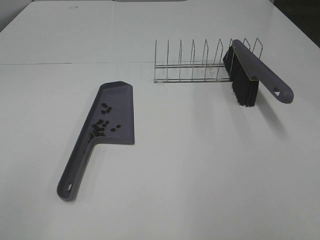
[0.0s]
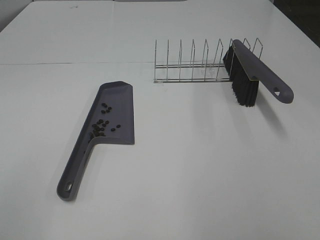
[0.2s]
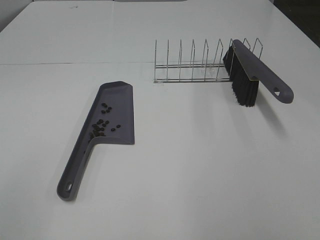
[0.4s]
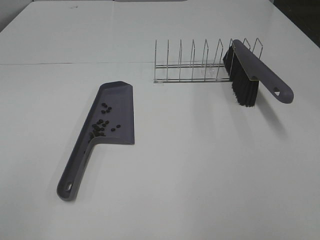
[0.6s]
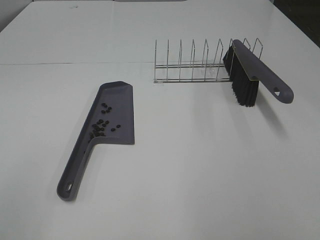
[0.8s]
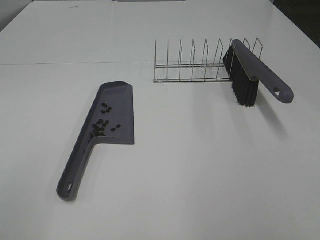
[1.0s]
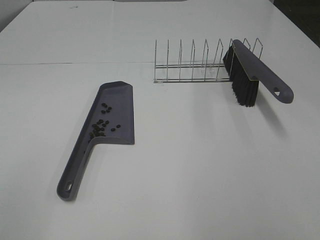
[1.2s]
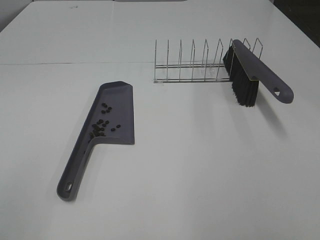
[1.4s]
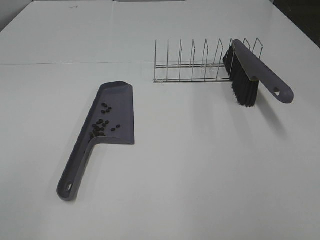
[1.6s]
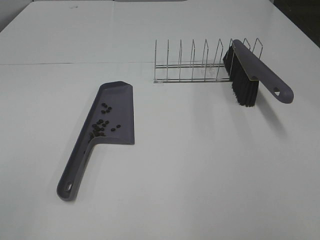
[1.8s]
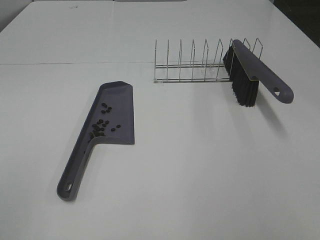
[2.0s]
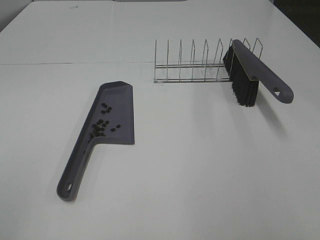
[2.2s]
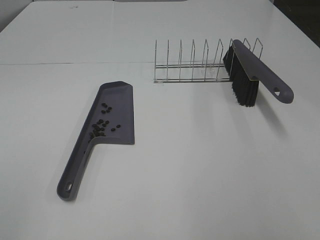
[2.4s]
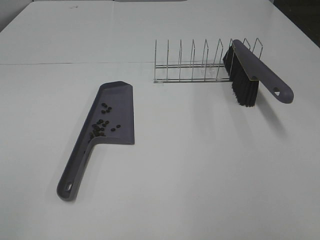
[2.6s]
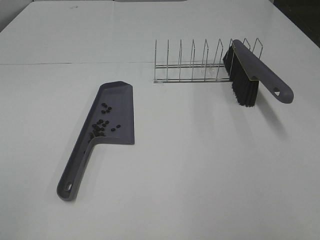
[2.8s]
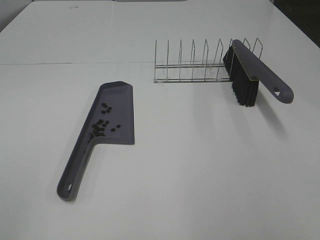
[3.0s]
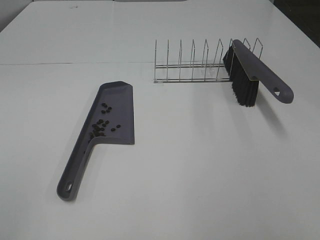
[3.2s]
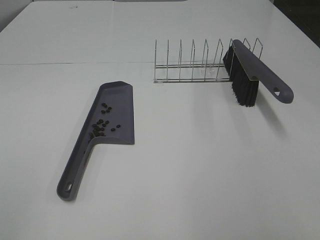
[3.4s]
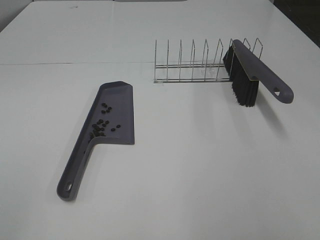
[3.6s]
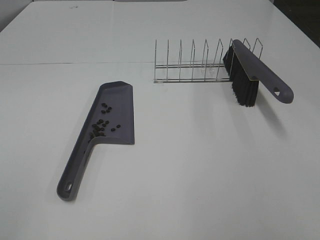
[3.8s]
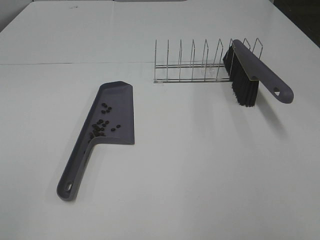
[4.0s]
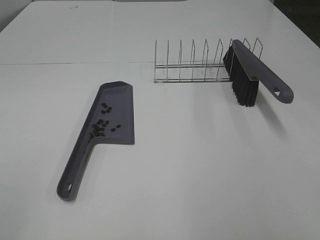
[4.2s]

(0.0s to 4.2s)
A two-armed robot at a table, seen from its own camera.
Task of the whole recording: Sweep Coffee Bean.
0.0s - 1.4s: Neither gripper changes place.
2.8s - 4.2s: Neither gripper changes place.

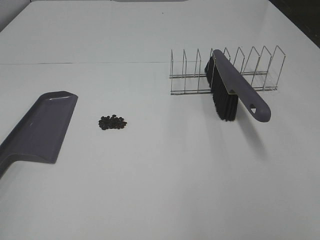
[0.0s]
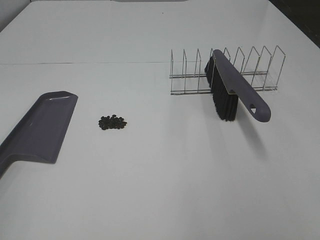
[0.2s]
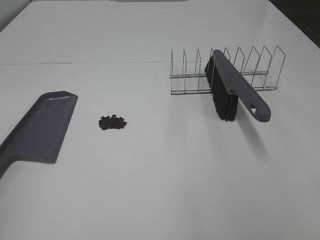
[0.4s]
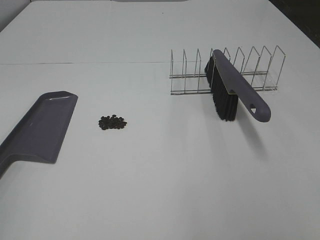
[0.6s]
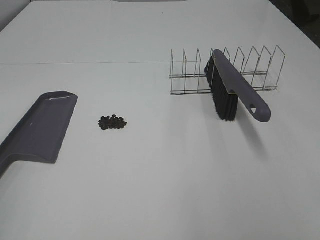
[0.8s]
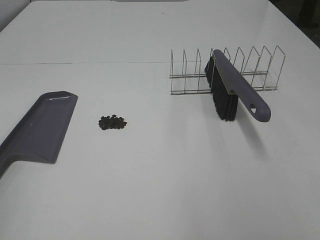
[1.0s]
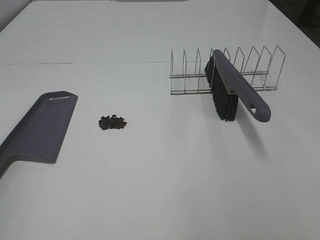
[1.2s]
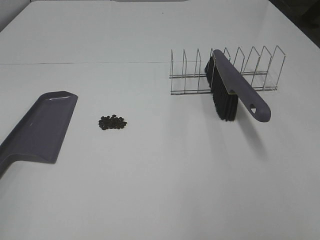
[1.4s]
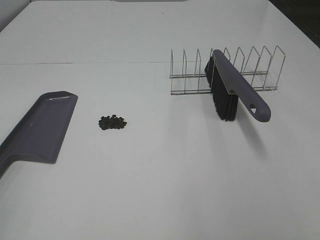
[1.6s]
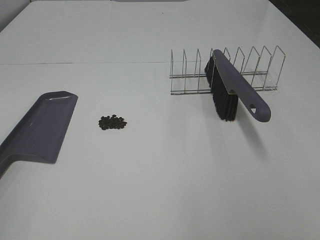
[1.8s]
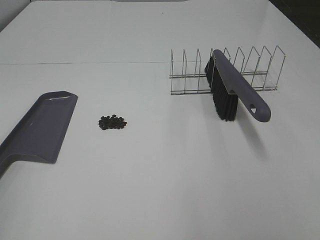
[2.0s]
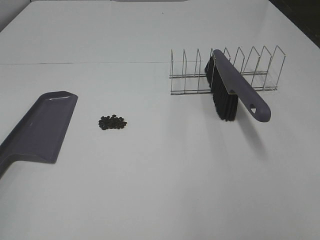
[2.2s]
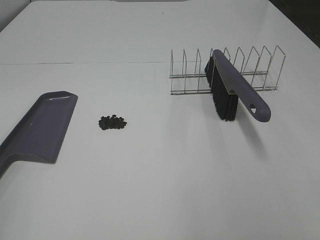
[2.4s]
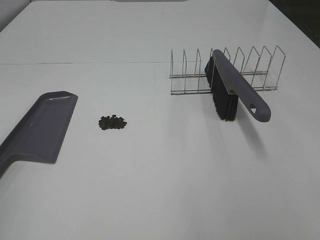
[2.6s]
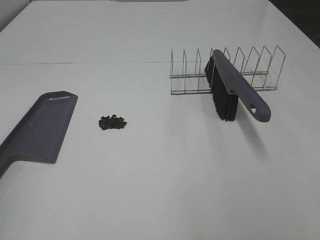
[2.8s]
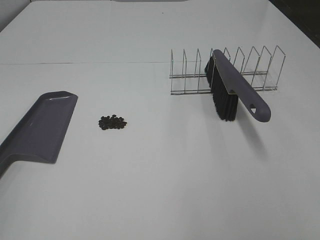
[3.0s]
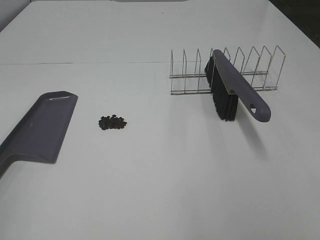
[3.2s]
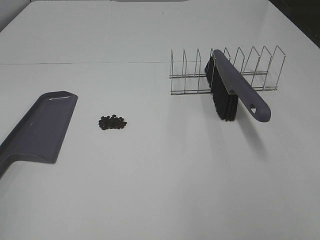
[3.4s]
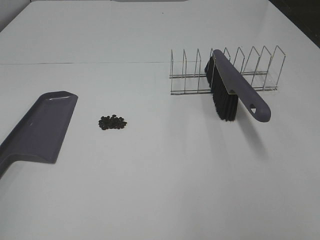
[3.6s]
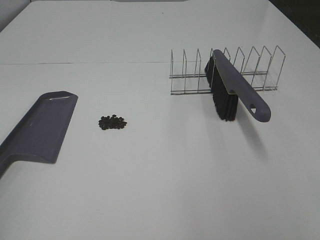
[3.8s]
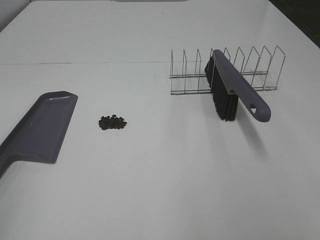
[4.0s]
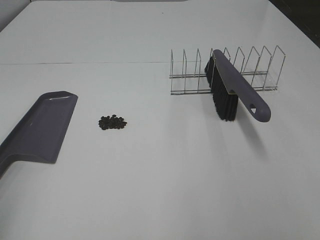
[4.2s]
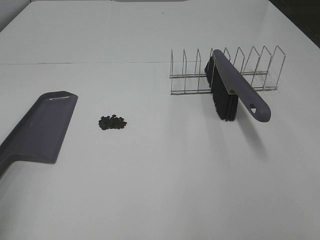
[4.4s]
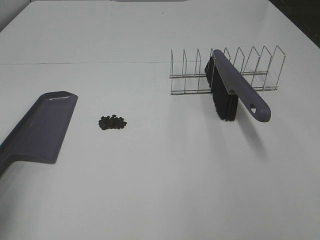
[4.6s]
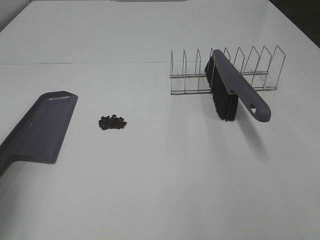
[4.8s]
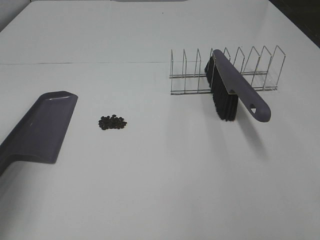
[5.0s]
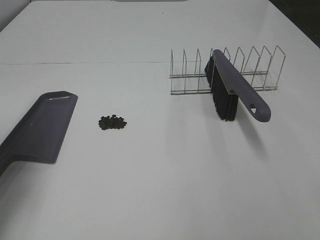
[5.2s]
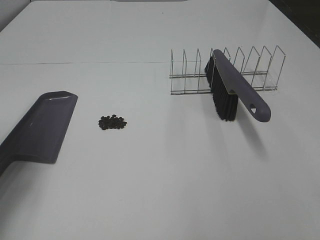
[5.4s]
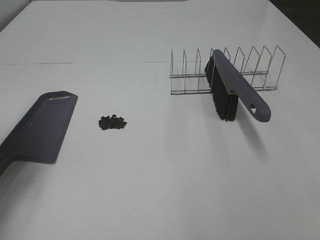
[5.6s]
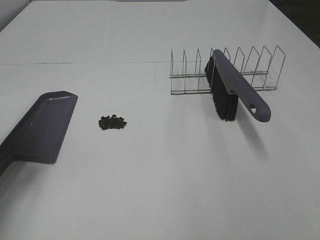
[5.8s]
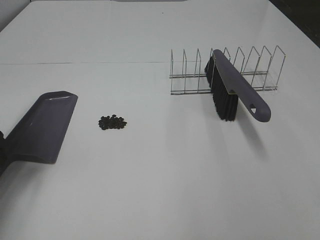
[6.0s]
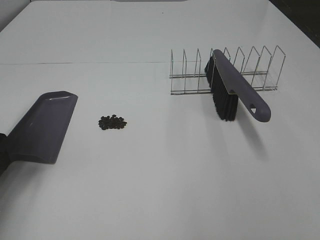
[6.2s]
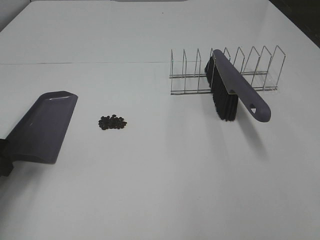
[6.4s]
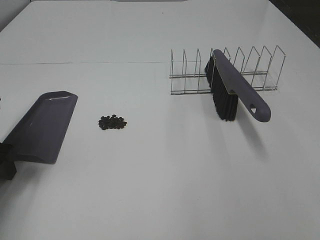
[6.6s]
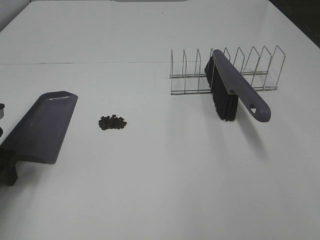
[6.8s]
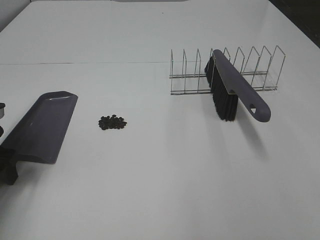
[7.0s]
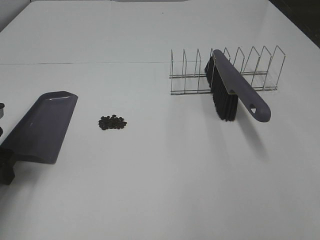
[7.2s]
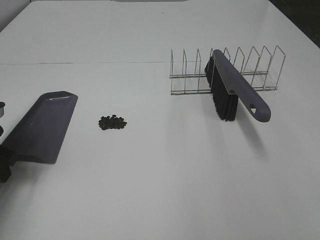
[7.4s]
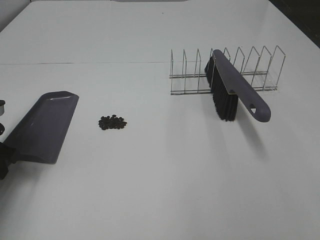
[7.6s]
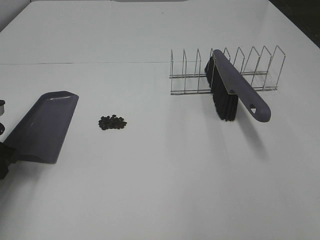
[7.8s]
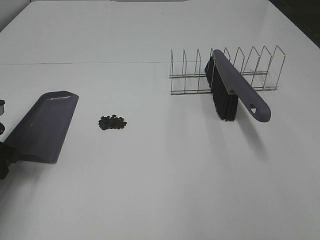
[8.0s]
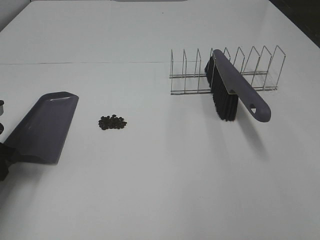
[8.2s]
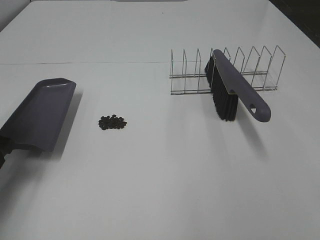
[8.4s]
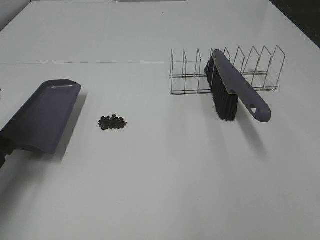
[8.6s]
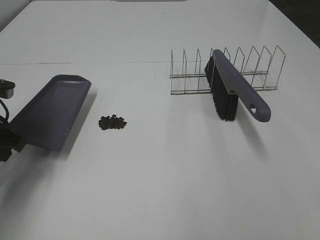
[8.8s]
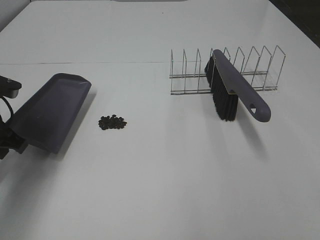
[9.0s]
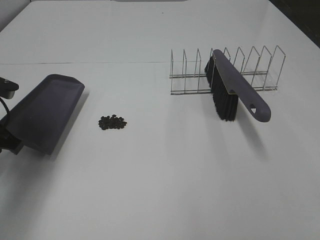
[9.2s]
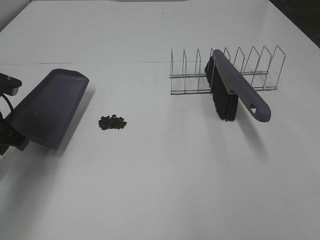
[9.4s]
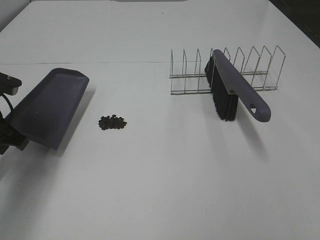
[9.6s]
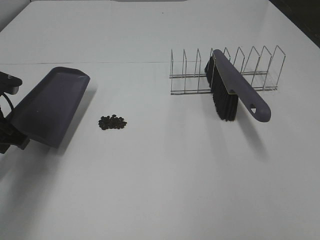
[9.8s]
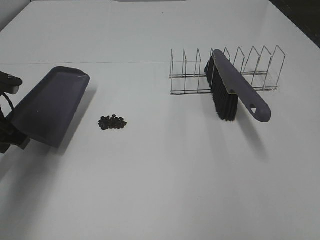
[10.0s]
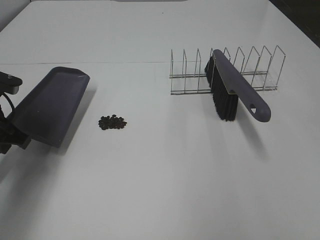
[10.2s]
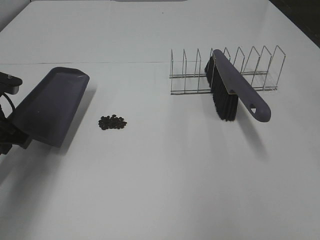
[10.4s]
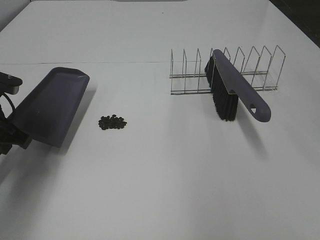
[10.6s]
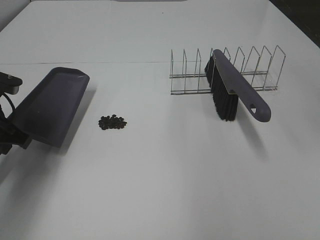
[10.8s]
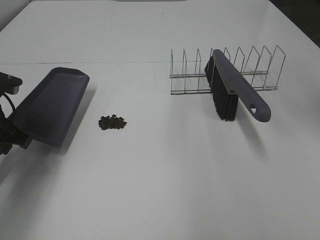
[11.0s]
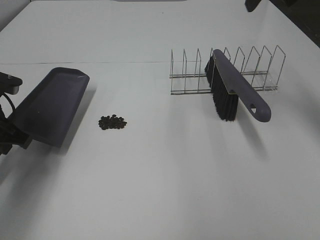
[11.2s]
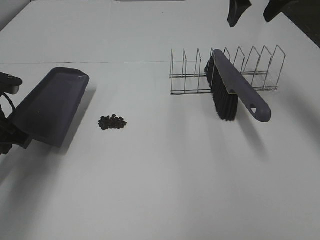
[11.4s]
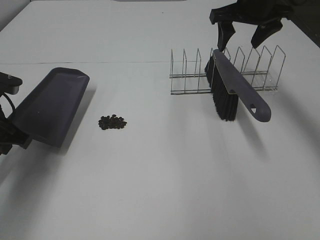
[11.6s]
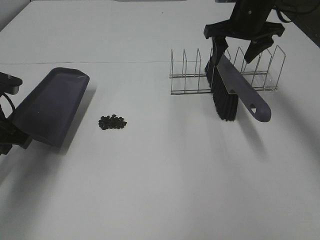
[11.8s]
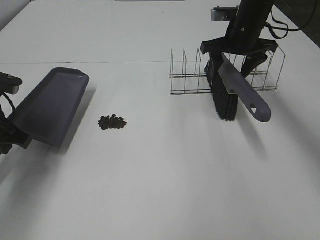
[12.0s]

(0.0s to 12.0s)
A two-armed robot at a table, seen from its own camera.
Task of the whole recording: Sweep Coffee Bean.
0.0s - 3.0s: The two grippers keep their place.
4.4s - 6.0s: The left gripper goes approximately 20 cm forward and downward.
7.6s - 9.0s: The left gripper shifts by roughly 5 cm.
10.4s - 12.0s: The right gripper shifts some 35 cm forward and downward.

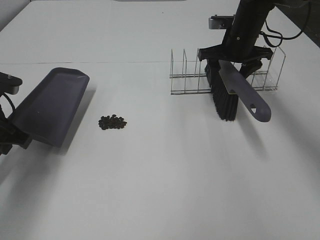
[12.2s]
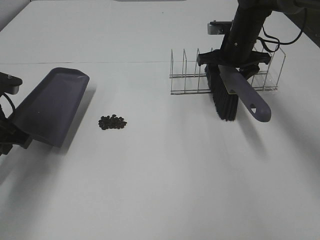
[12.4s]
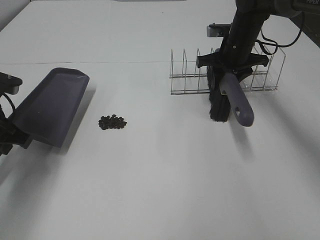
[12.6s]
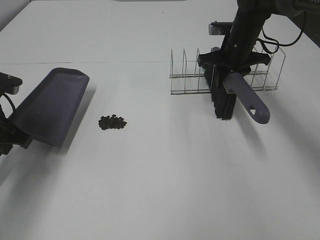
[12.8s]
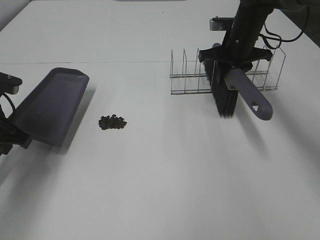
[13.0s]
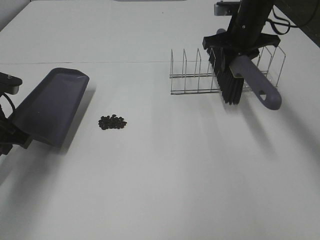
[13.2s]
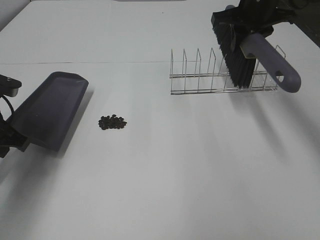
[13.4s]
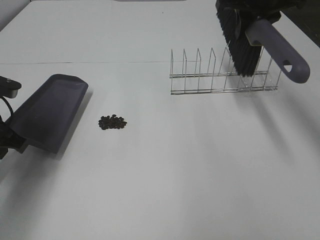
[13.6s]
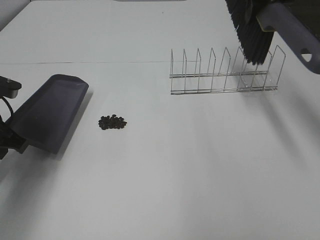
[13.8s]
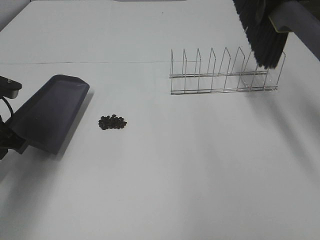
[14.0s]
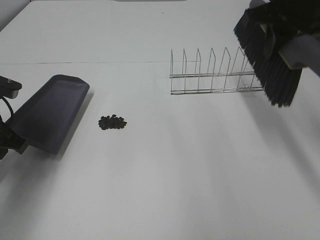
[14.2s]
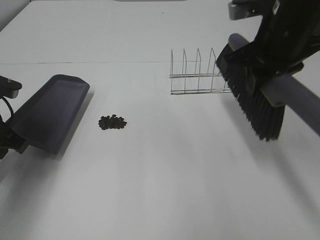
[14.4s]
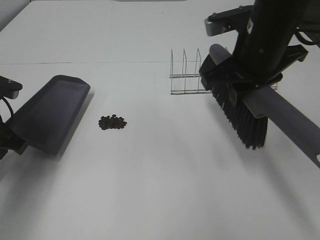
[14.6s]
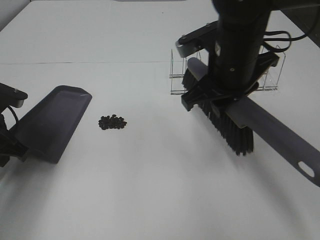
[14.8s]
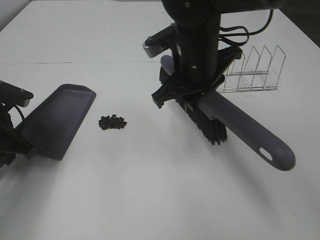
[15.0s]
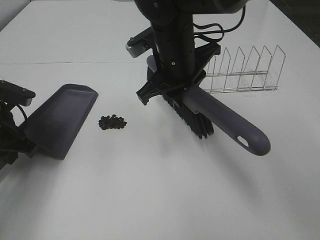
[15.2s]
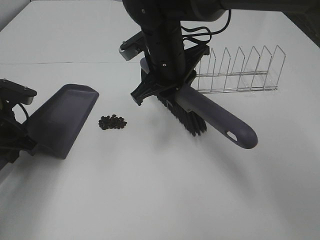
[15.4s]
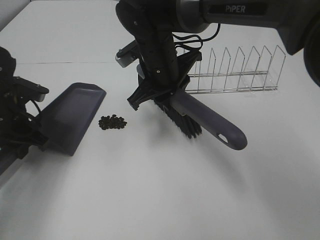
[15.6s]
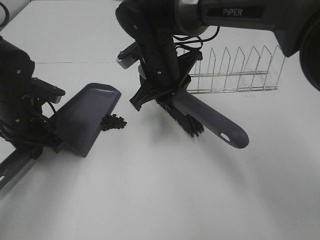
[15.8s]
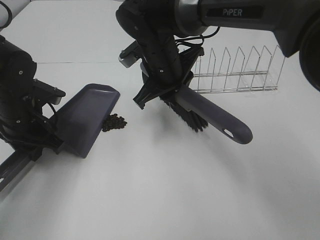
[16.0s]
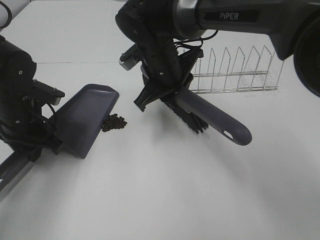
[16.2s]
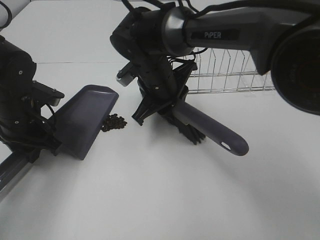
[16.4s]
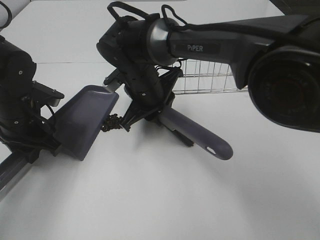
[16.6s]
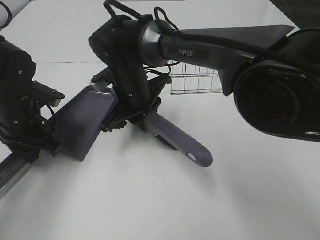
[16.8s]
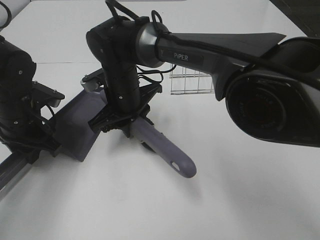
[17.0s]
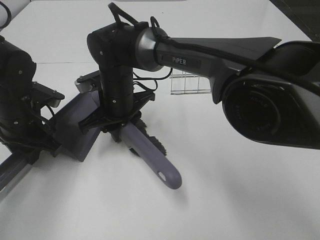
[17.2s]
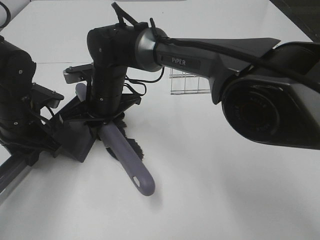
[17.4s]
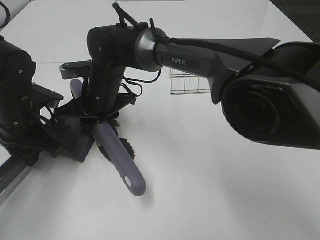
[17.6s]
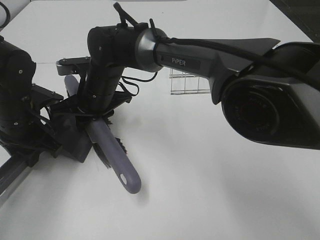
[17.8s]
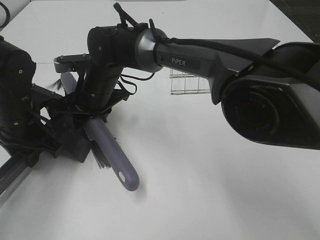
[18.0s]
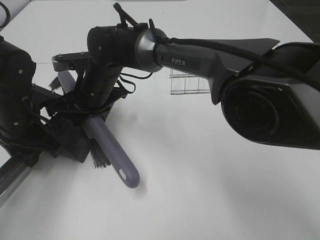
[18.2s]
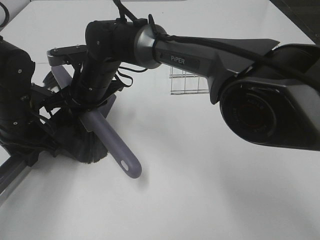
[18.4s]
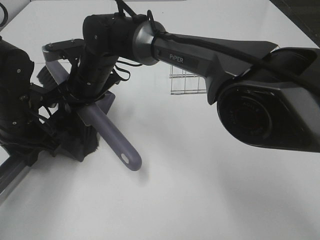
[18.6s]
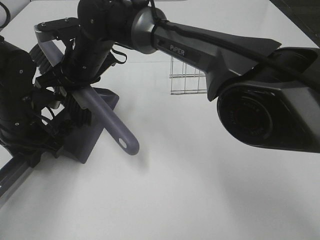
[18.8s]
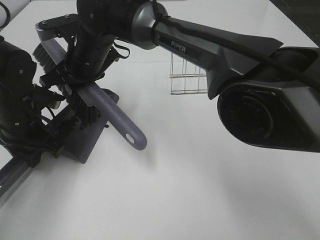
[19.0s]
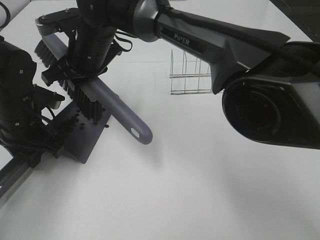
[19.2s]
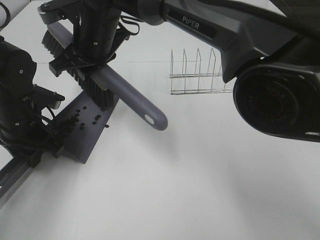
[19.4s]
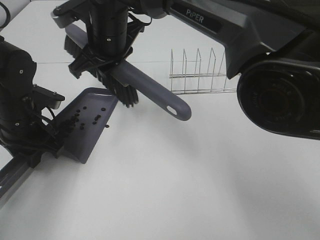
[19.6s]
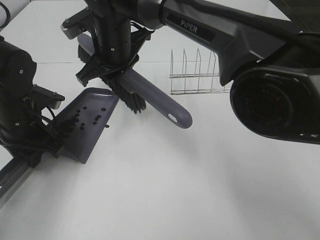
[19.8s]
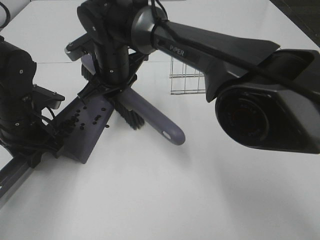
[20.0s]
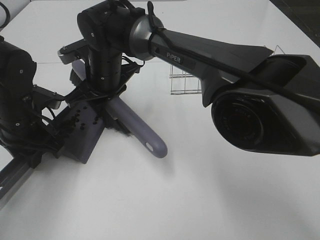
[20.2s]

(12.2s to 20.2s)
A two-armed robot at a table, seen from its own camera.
Task of the whole recording: Sweep Coffee Bean.
12.2s - 13.8s: The right gripper goes about 15 cm upward, and closes.
13.8s - 15.4s: The right gripper is displaced to the left and downward by roughly 25 cm.
15.4s - 17.0s: The right gripper travels downward and to the left by approximately 10 cm.
17.0s - 18.6s: The right gripper moves to the left, roughly 5 cm.
18.6s - 20.2s: The right gripper reaches roughly 10 cm upward, then returns.
